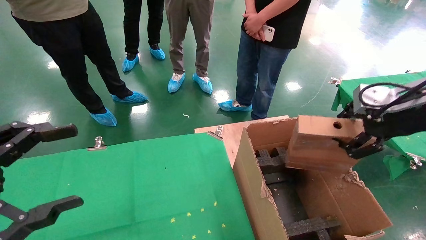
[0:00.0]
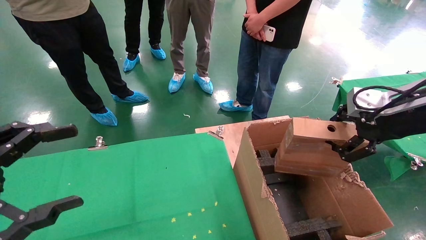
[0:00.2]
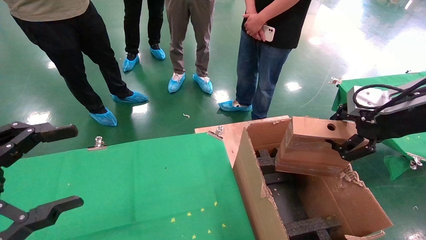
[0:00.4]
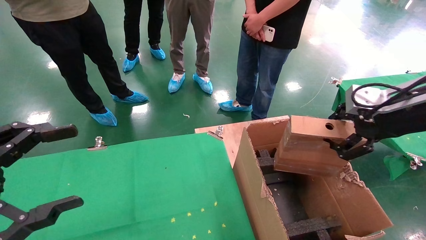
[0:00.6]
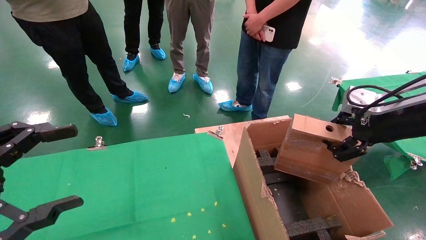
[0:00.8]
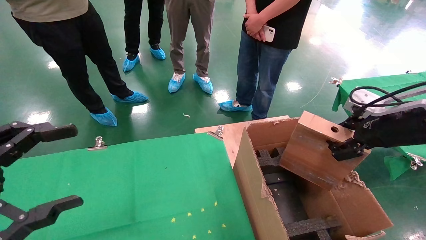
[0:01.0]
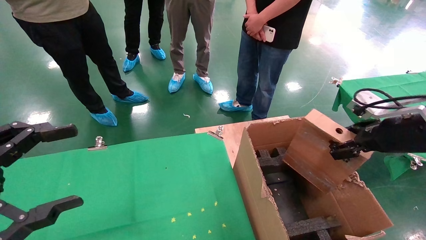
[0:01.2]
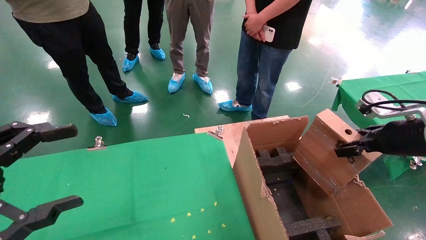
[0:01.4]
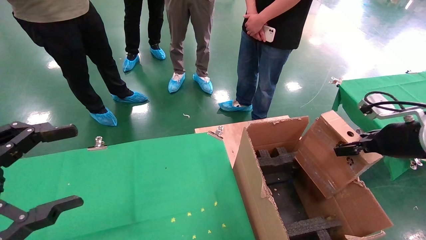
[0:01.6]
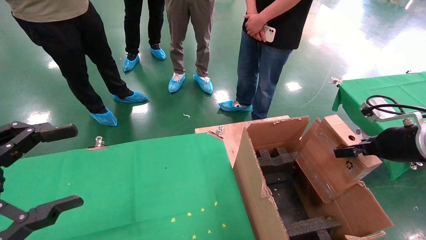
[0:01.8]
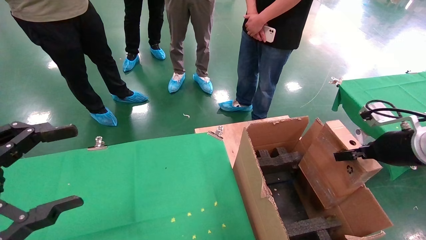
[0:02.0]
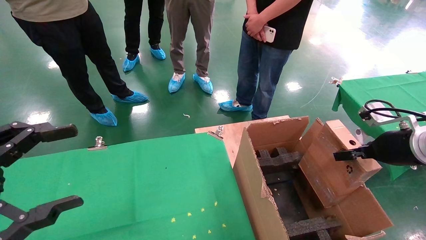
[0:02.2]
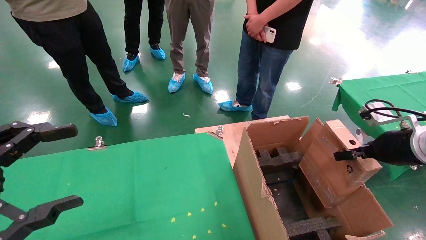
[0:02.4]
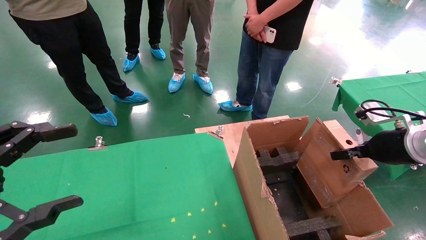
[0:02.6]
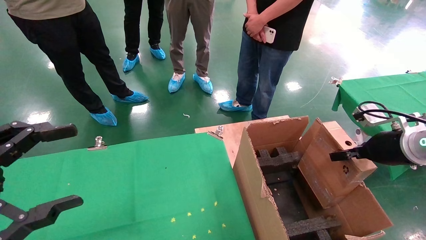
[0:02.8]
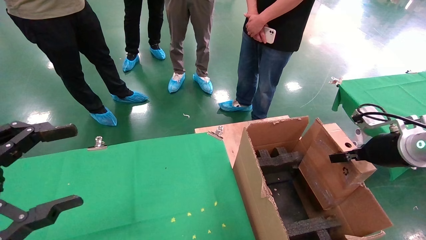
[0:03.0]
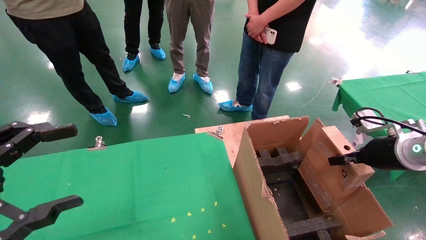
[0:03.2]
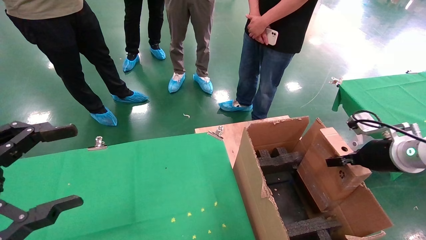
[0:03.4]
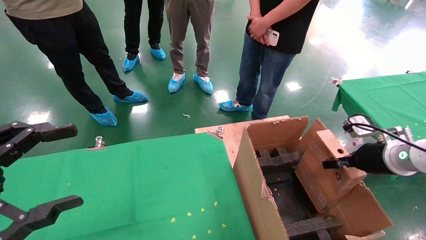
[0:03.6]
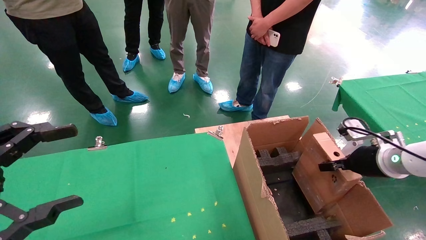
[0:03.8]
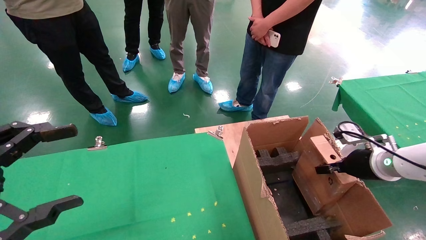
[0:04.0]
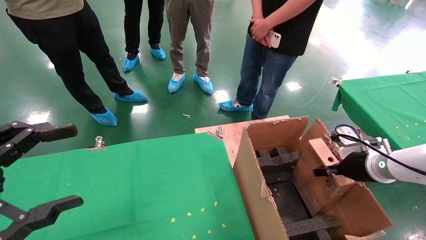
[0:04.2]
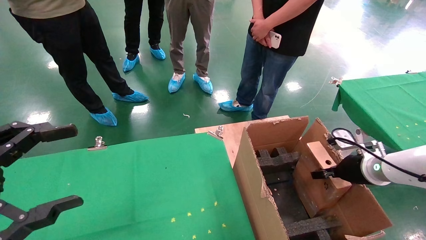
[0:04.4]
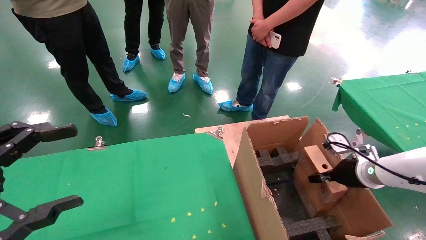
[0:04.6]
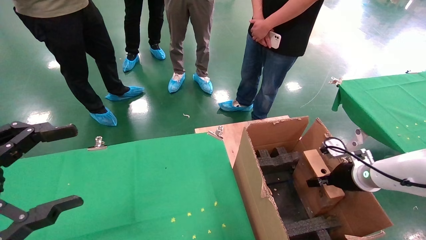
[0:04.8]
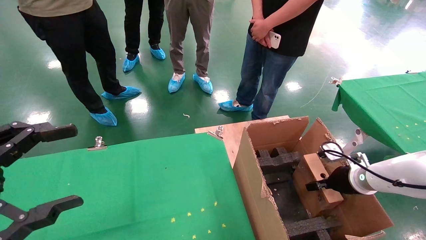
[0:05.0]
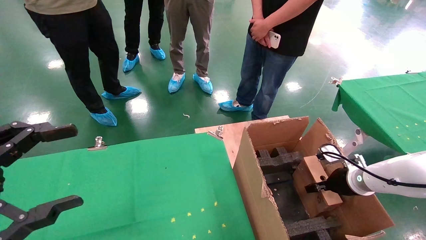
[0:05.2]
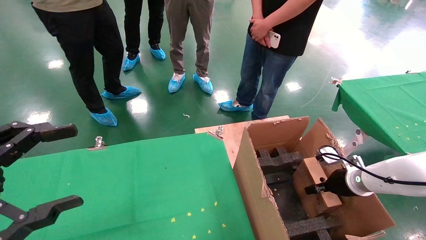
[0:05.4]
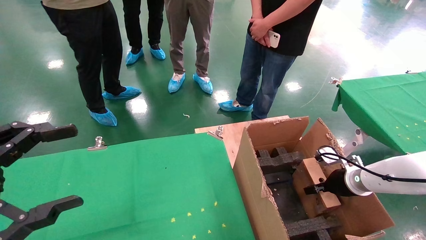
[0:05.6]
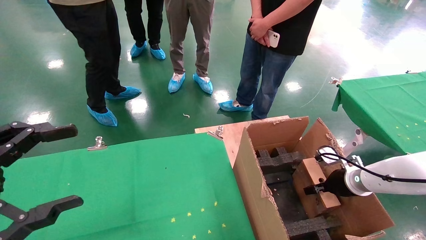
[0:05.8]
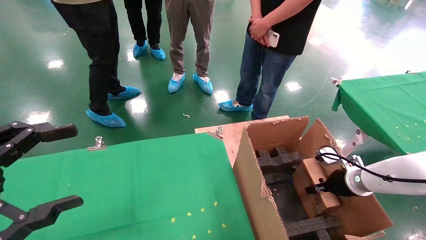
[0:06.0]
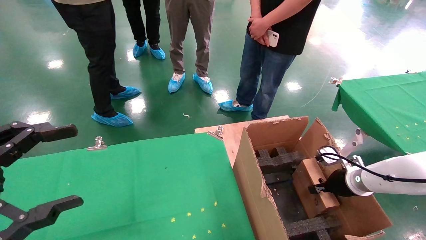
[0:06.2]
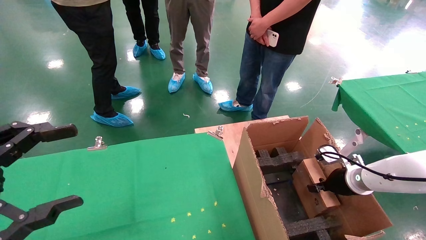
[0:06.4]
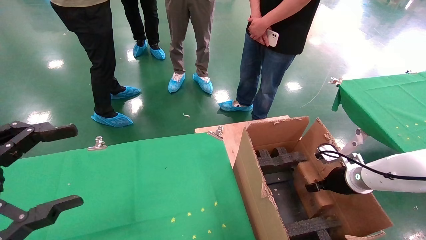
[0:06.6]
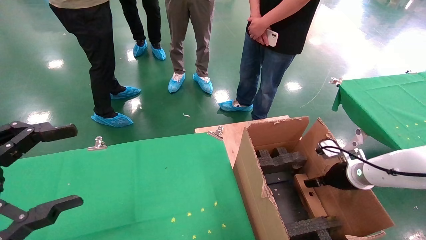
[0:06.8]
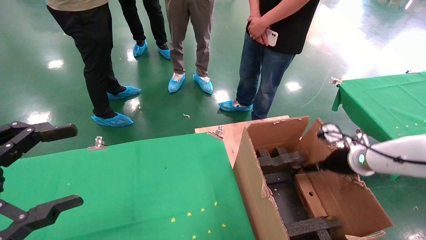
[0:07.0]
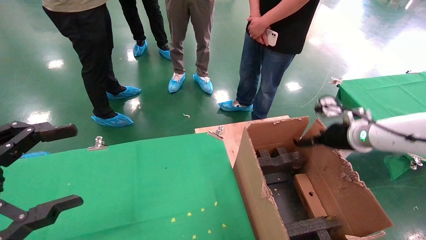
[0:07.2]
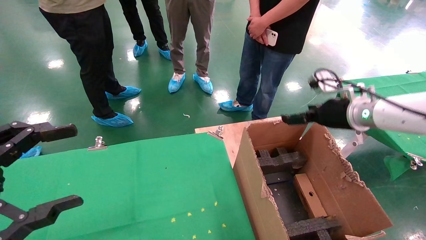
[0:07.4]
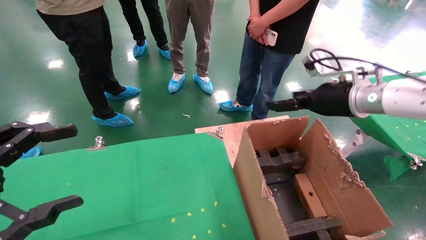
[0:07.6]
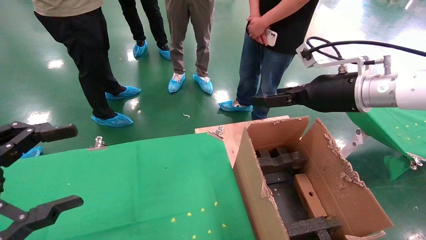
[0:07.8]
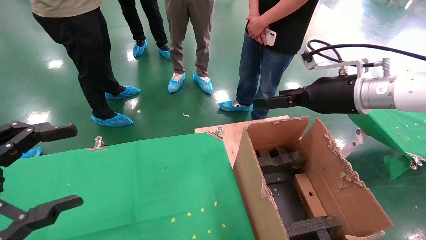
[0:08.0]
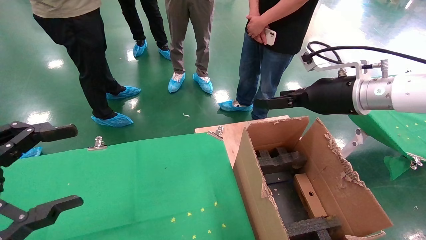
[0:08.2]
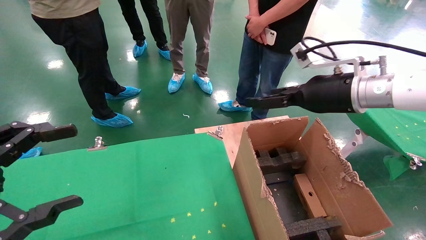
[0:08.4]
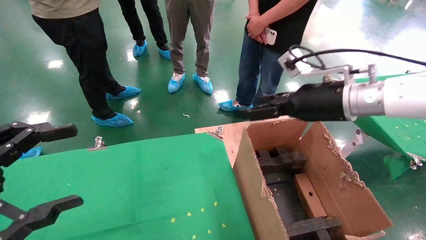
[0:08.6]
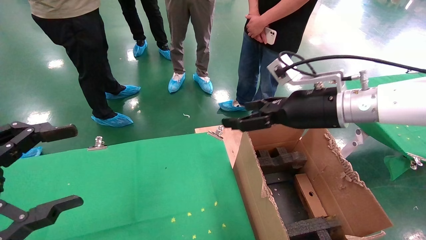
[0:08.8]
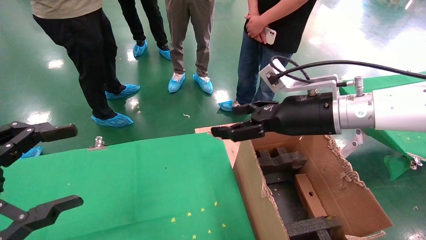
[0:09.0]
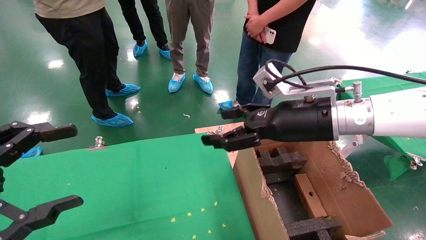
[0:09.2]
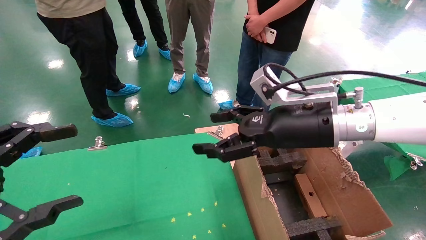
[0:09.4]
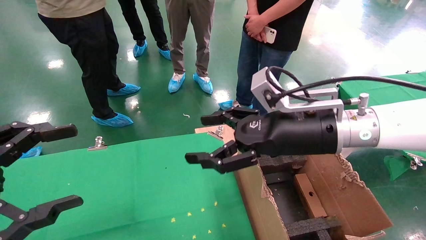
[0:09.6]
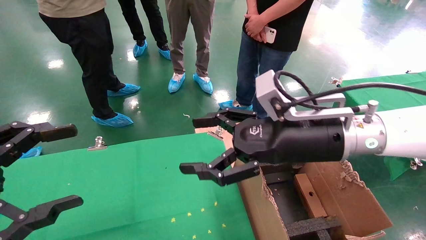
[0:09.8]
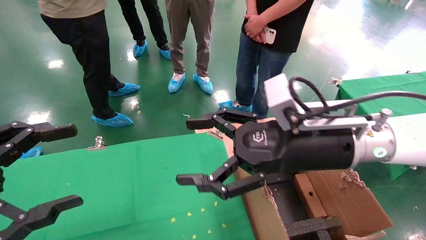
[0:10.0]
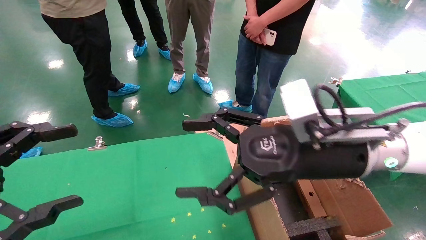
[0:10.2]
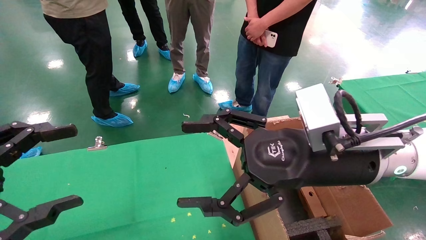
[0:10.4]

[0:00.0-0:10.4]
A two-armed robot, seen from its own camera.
Task of the whole recording: using a robotic arm to pick up a cardboard box and palace it the carton.
Step, 0.0 to 7.4 s: Place the mouse and the power cord paper box into the container.
0.0 to 1.4 s: The right gripper travels downward by some 10 cm.
1.4 to 3.0 s: The right gripper moves some 5 cm.
3.0 to 4.4 s: The right gripper goes approximately 10 cm downward.
4.4 to 6.0 s: The right gripper heads downward, covering approximately 5 cm.
6.0 to 7.4 s: The right gripper is displaced upward by roughly 20 cm, and opens up.
7.4 to 9.0 s: The right gripper moves to the left and backward, some 15 cm.
9.0 to 10.4 s: The right gripper travels backward by about 10 cm.

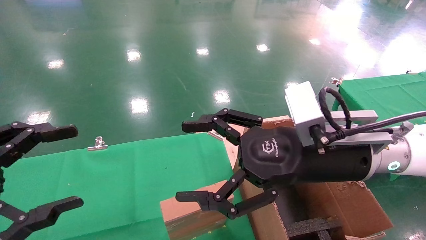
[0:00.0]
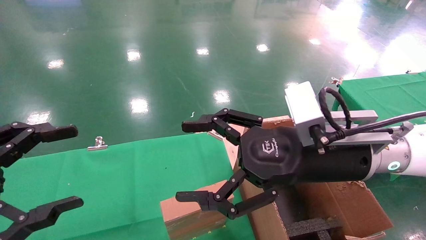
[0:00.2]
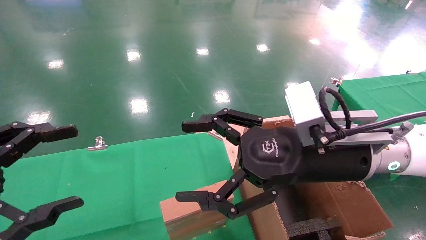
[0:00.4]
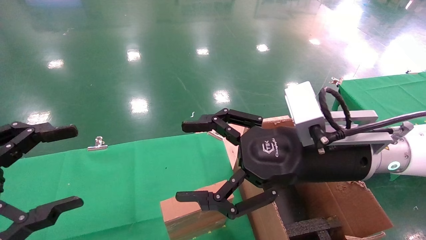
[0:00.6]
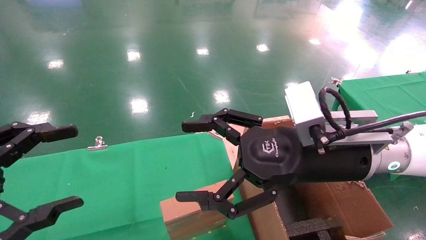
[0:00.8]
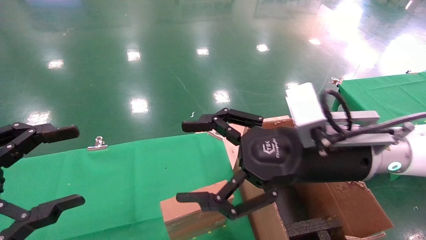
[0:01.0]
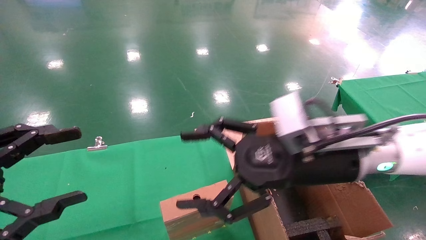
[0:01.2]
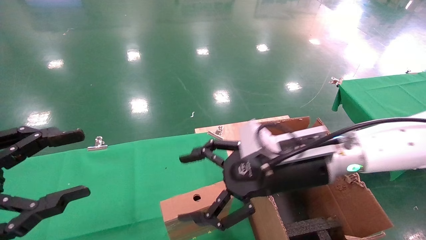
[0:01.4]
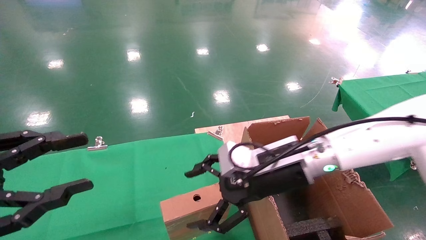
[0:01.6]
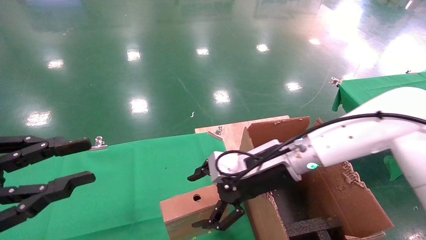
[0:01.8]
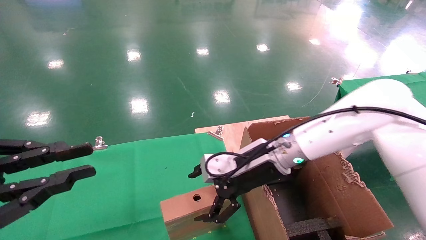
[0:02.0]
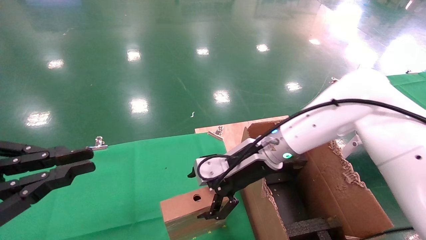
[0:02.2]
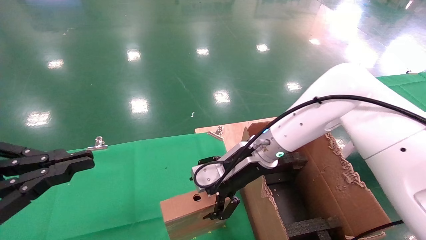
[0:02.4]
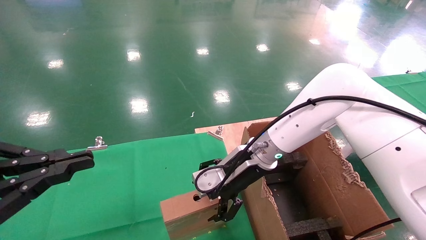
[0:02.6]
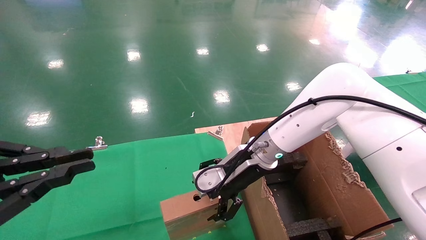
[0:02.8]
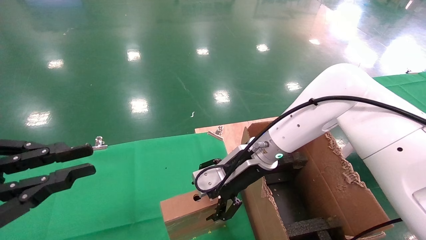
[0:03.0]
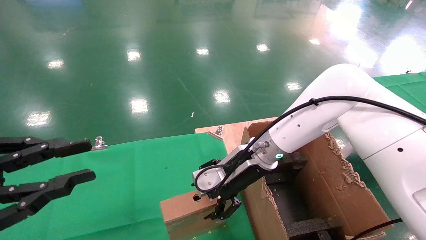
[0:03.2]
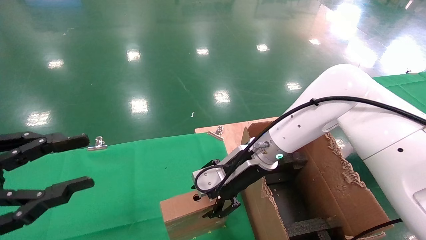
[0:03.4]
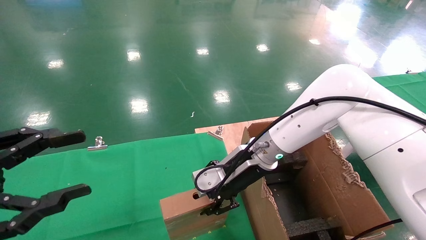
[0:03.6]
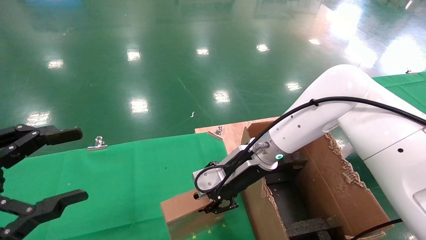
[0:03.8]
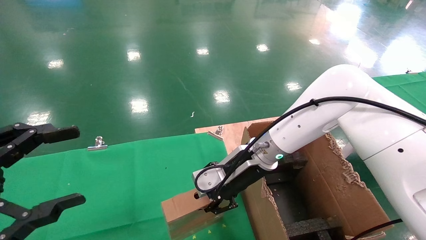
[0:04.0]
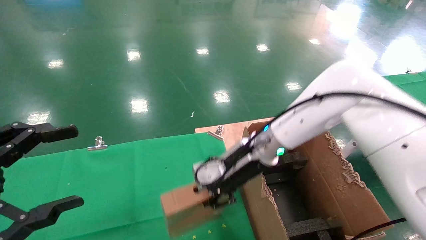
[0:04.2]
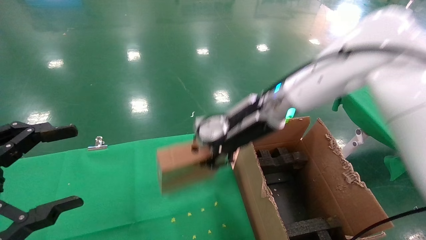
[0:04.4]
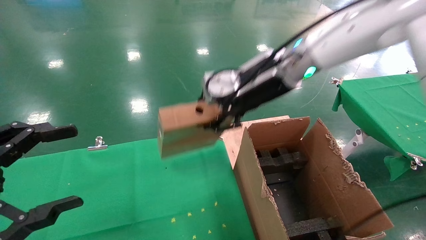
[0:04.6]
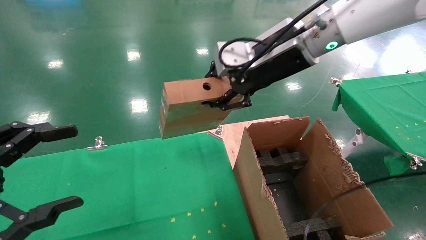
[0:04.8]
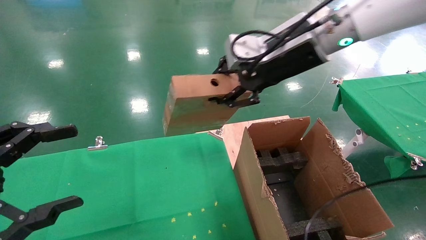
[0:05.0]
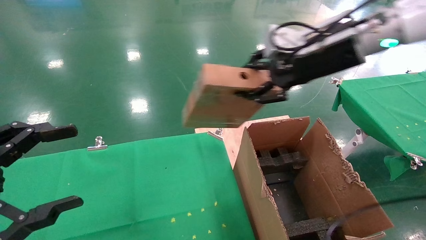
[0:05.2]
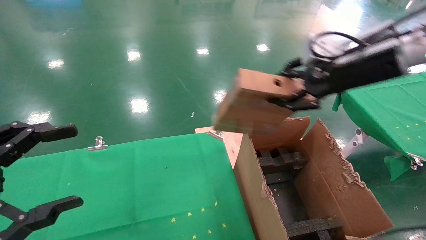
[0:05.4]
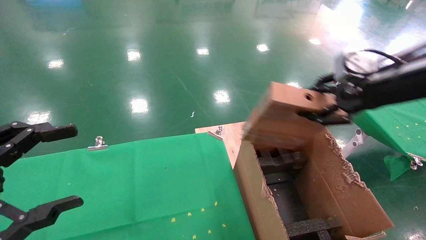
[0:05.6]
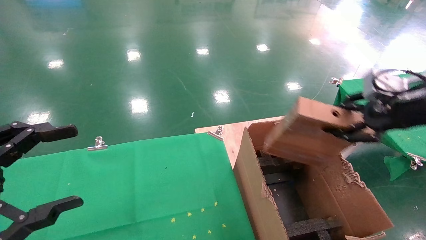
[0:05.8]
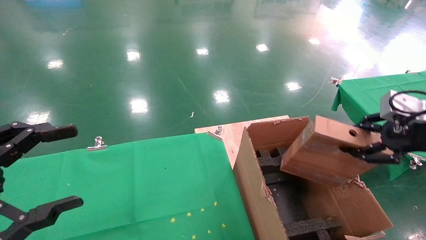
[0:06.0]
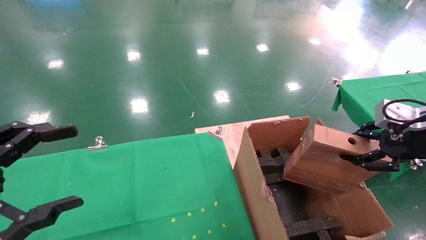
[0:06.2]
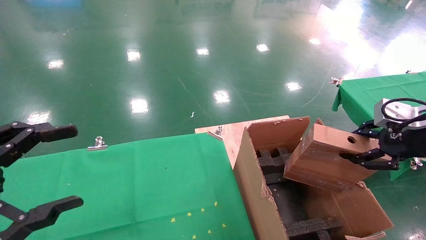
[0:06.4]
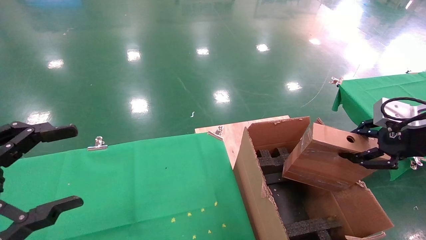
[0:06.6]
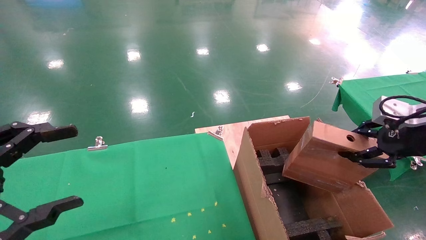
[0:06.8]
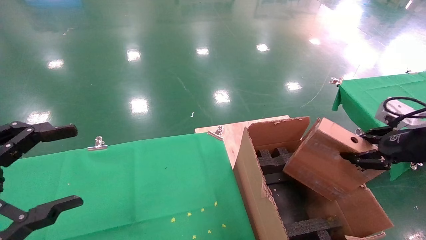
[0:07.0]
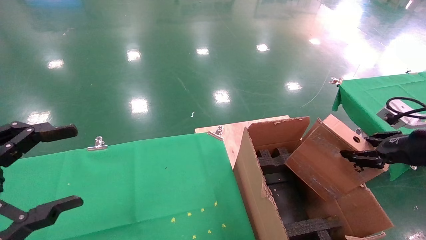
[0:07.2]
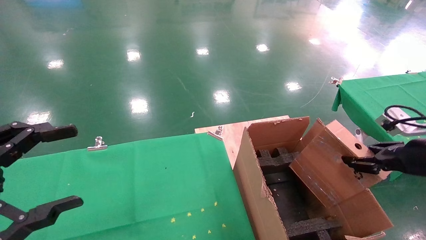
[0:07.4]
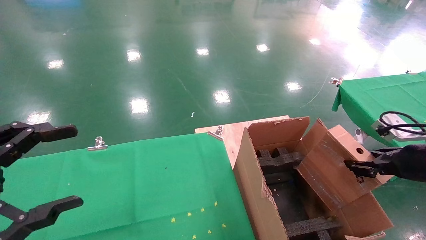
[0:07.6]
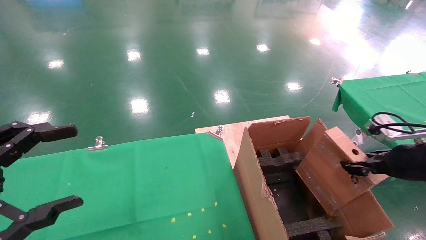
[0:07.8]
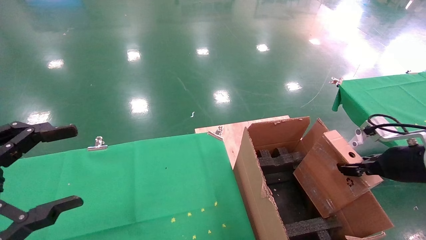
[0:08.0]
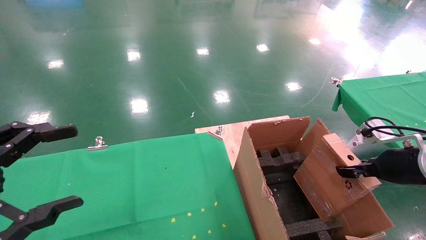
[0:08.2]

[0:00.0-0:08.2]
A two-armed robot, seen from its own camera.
Task of the whole recording: using a robotic arm to pick up a cardboard box and palace it the carton.
Step, 1.0 to 3.6 s: Pick up the mouse and the power cord paper box.
0.0 to 1.6 s: The right gripper shifts about 10 cm forward and downward.
1.6 to 3.2 s: The left gripper closes. The right gripper heads forward, covering roughly 5 cm.
3.2 to 5.0 s: The left gripper opens. The right gripper is displaced upward and to the right by roughly 20 cm, and closes up.
5.0 to 6.6 s: The right gripper heads to the right, backward and downward, covering about 30 cm.
6.6 to 8.2 s: The right gripper moves downward, approximately 10 cm.
